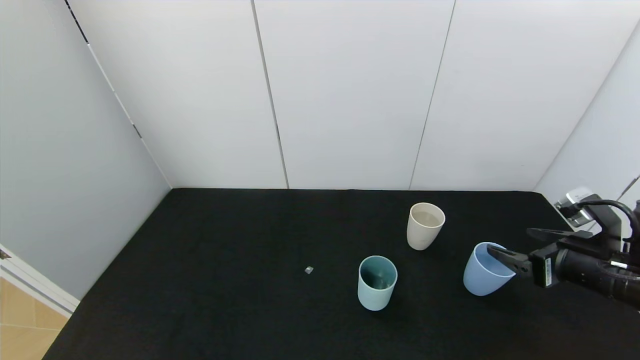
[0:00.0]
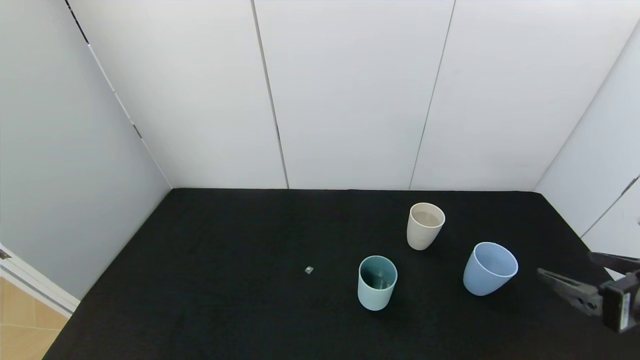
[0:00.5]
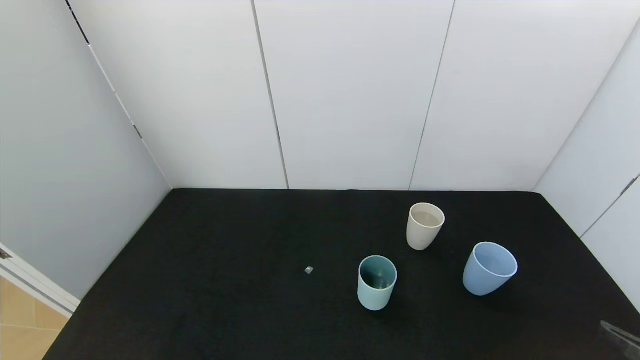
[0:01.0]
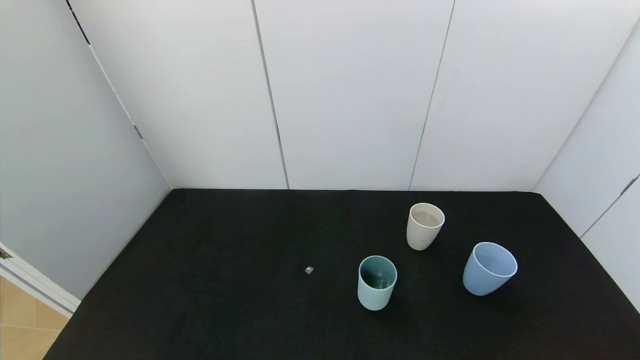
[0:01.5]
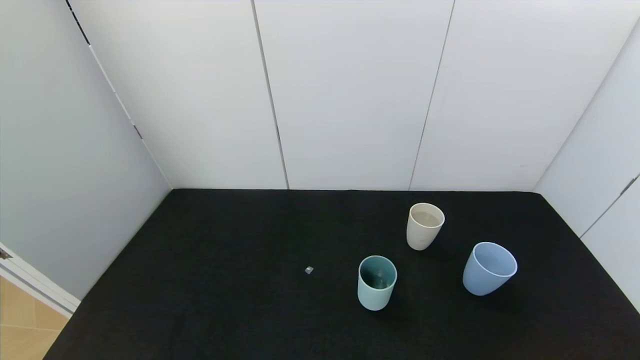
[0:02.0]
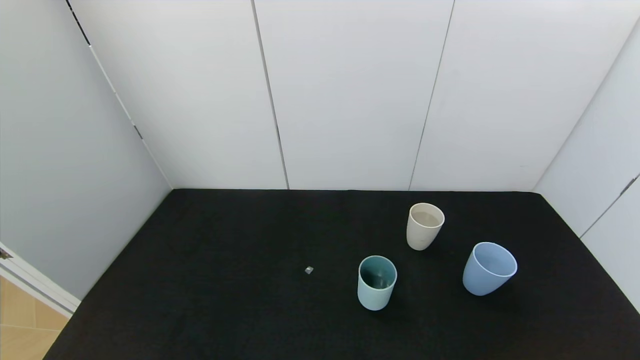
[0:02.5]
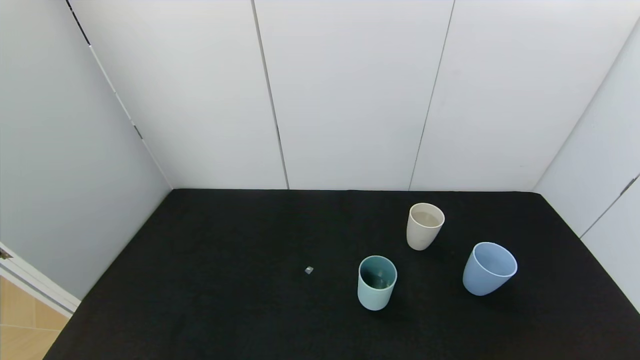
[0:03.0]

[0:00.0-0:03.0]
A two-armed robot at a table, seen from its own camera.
Task of the whole recording: use the gripper to pour the water into the other two cups on black table.
0:00.0 to 0:01.5: The right gripper shifts approximately 25 cm backward.

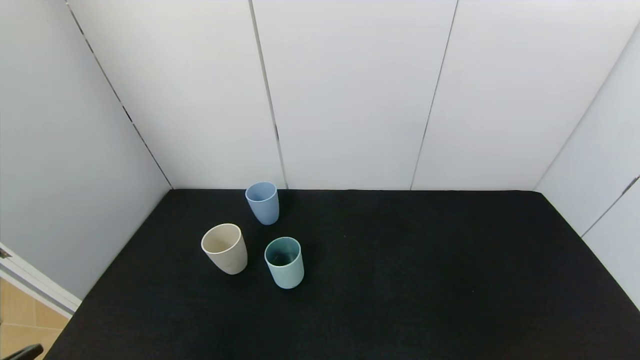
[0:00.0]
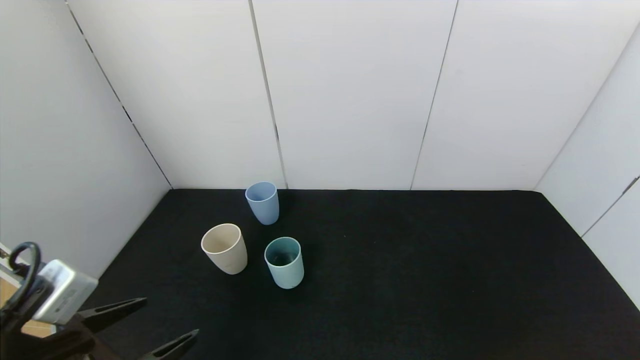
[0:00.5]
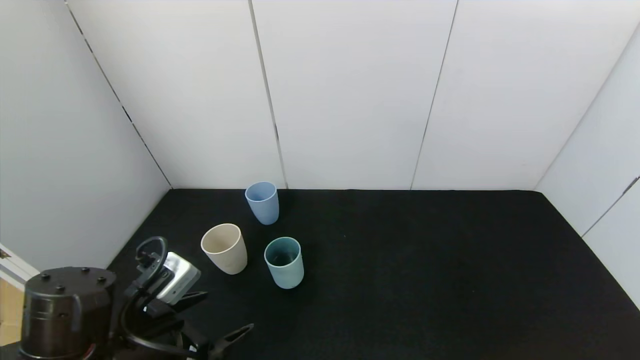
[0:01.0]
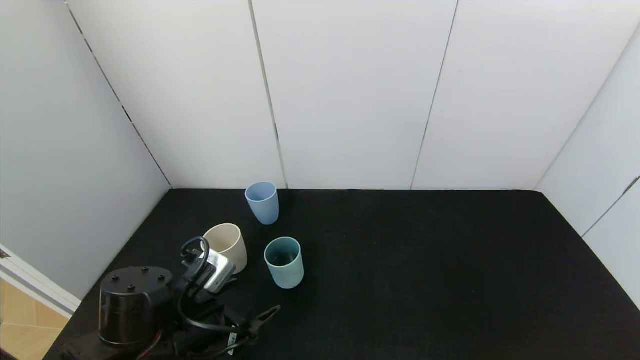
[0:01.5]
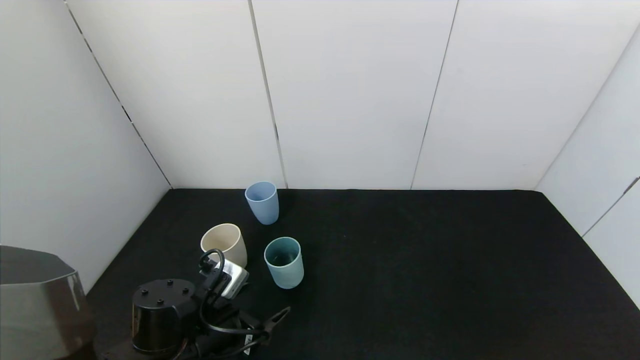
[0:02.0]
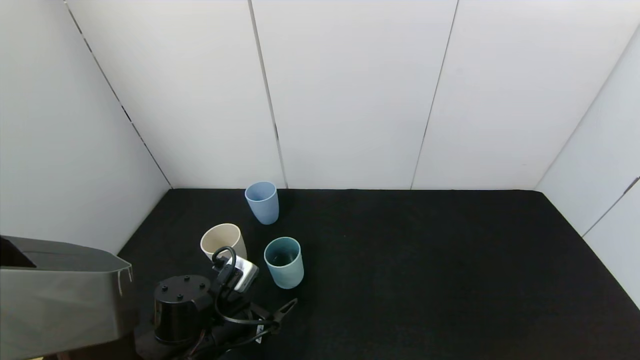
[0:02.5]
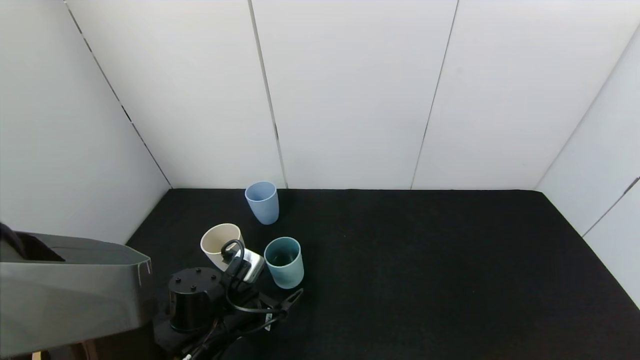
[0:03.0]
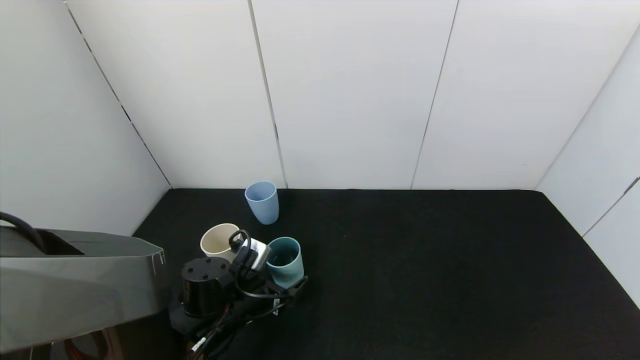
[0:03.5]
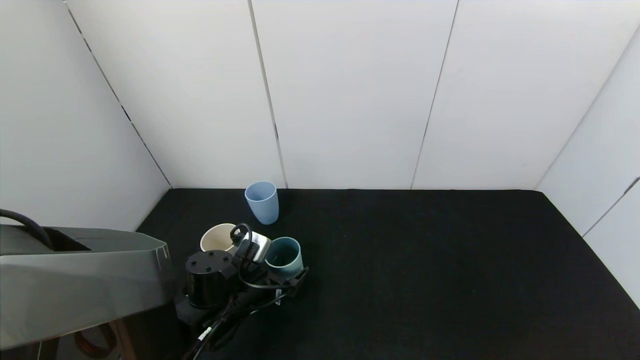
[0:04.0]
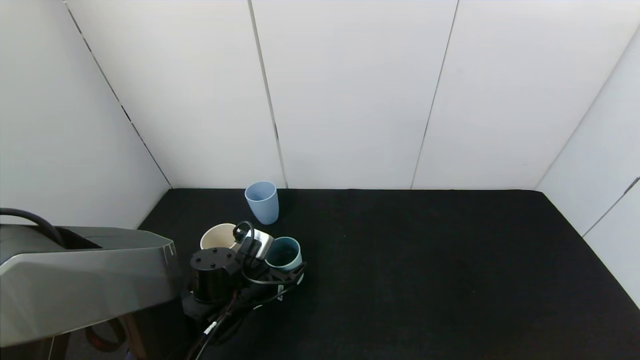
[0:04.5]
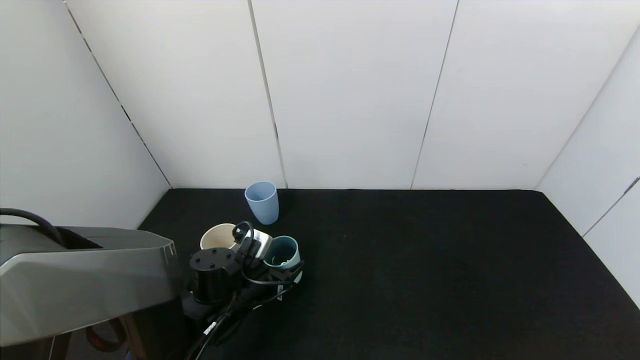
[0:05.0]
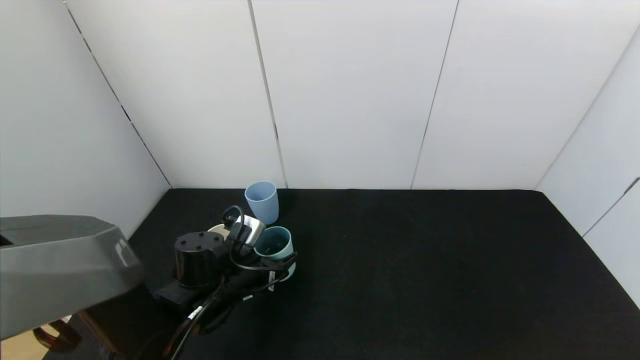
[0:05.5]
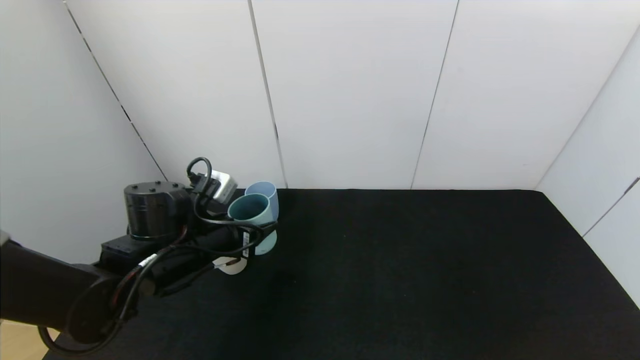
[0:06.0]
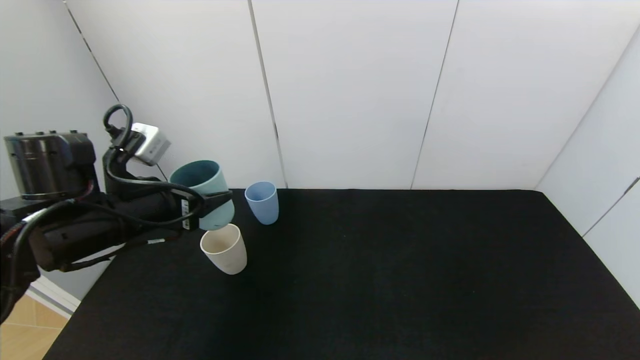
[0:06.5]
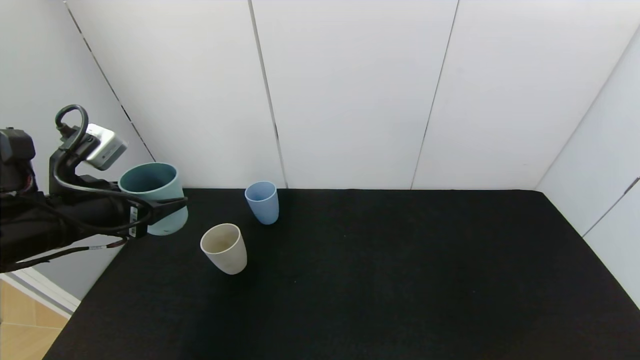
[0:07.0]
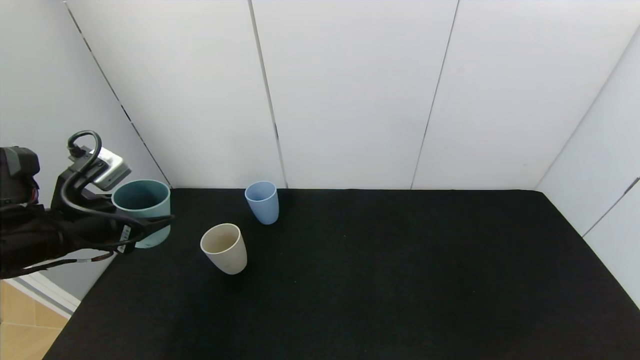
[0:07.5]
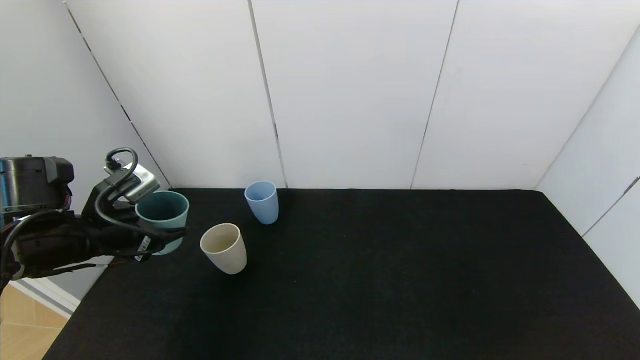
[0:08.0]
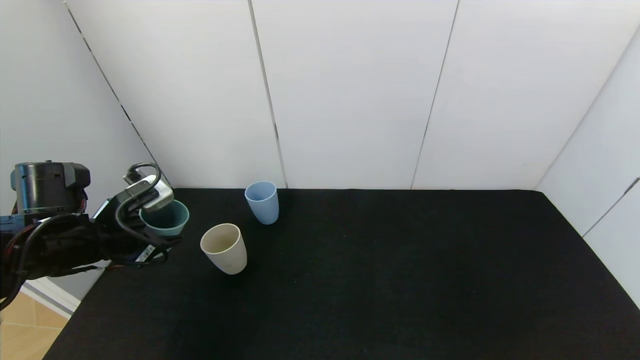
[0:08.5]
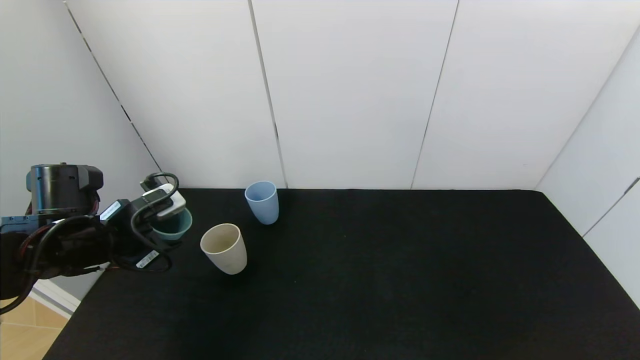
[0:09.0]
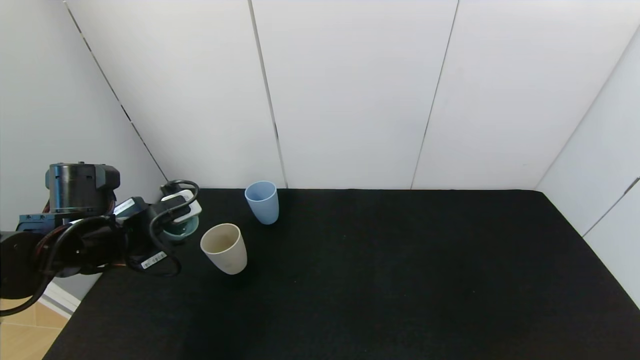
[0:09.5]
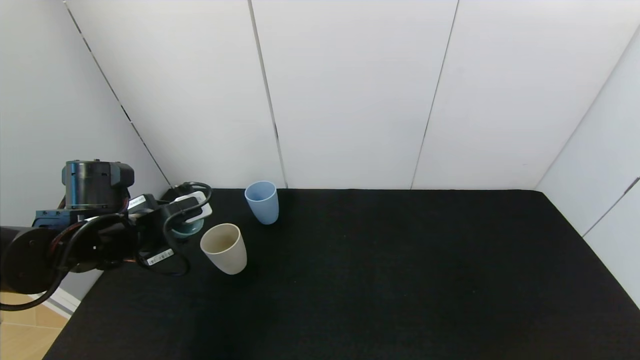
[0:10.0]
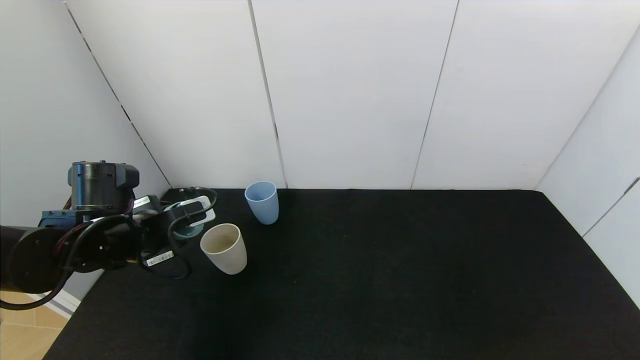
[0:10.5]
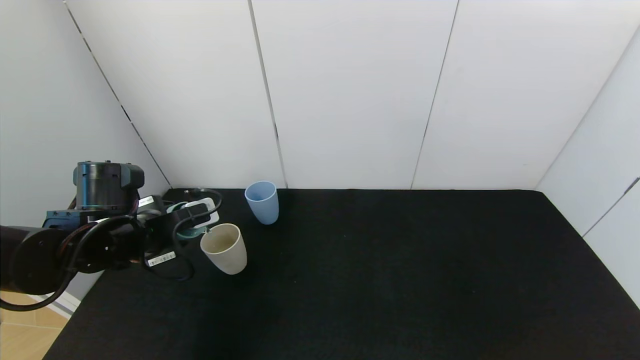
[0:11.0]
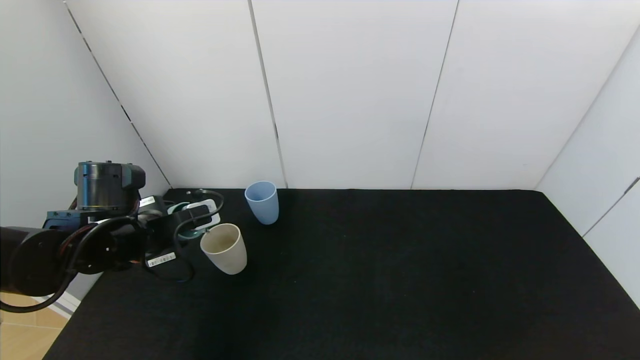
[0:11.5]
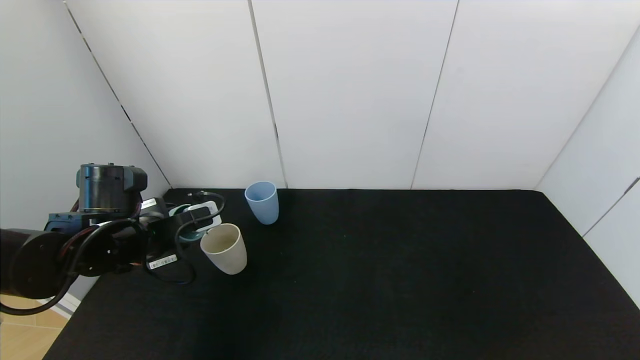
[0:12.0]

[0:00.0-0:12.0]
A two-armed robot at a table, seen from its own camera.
Task of the whole recording: use the gripper to pour the water into the other two cups on black table.
Step, 0:00.0 to 0:04.5: Grasp the green cup with the left gripper.
0:00.0 to 0:02.0: The left gripper travels forward, downward and to the right by about 25 cm.
0:02.0 to 0:04.0: The left gripper travels forward by about 5 cm.
0:04.0 to 0:06.0: The left gripper heads upward, covering some 10 cm, and closes its fingers.
0:06.0 to 0:08.0: The left gripper heads to the left, covering about 10 cm.
0:10.0 to 0:12.0: The grippers make only small movements.

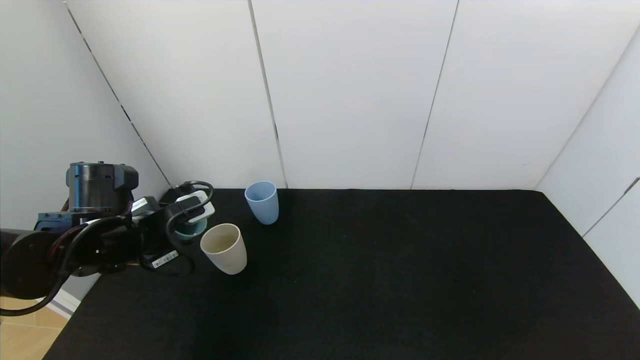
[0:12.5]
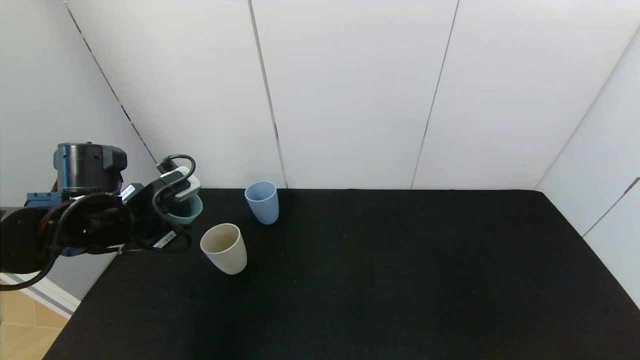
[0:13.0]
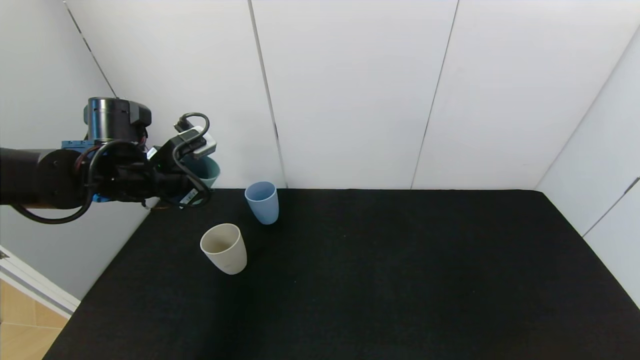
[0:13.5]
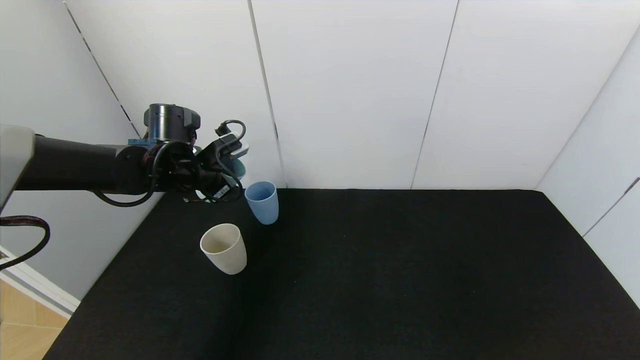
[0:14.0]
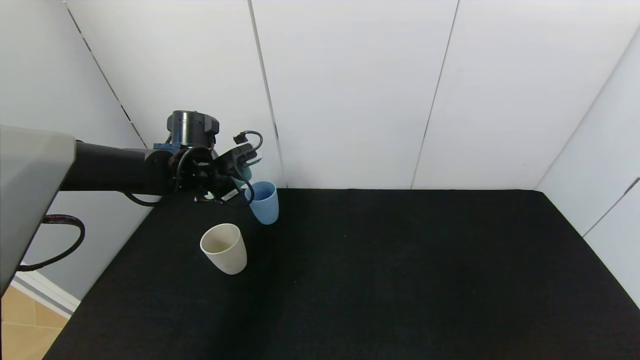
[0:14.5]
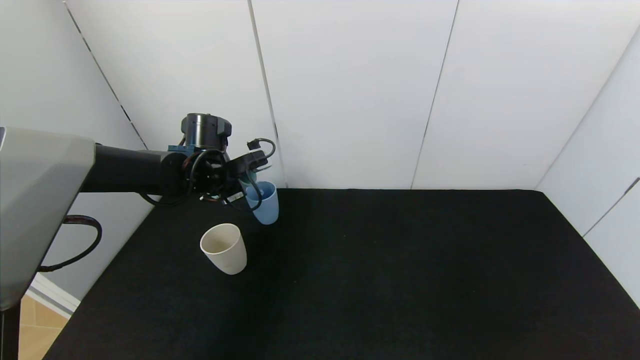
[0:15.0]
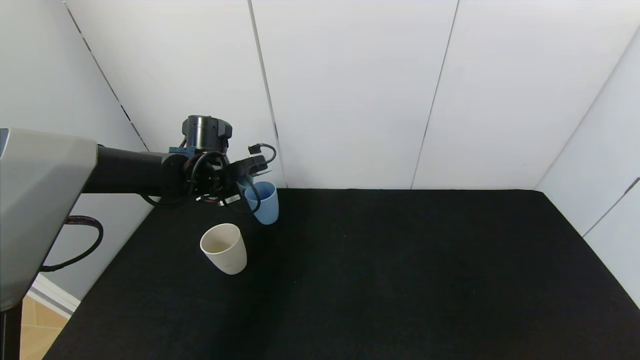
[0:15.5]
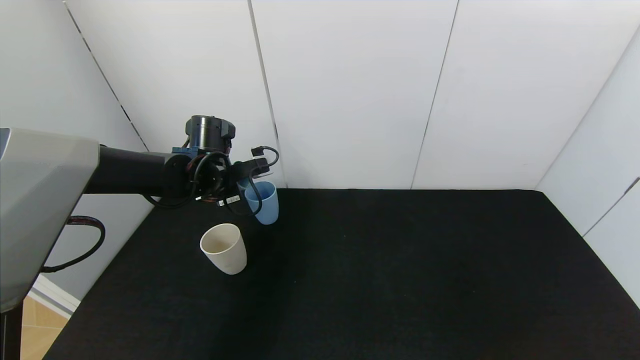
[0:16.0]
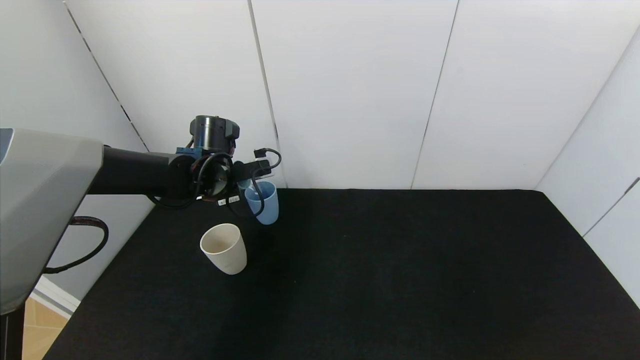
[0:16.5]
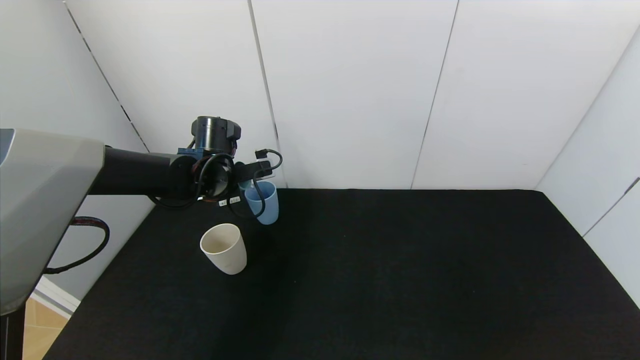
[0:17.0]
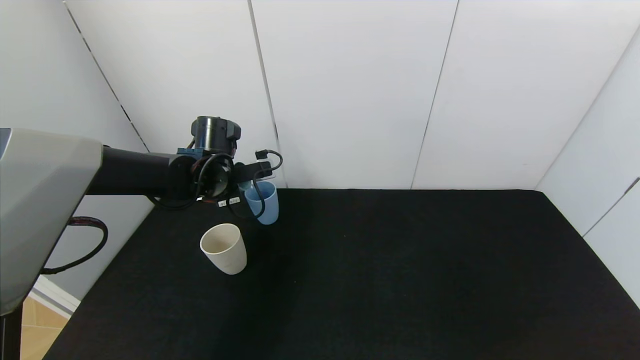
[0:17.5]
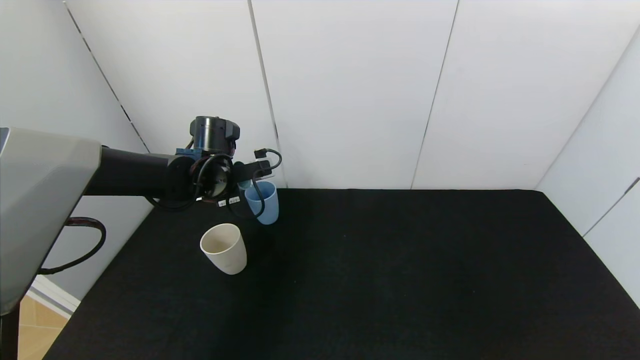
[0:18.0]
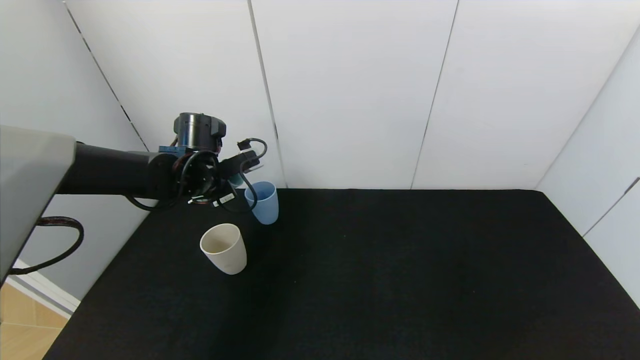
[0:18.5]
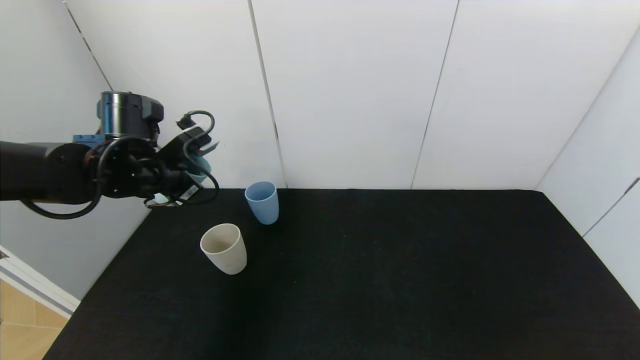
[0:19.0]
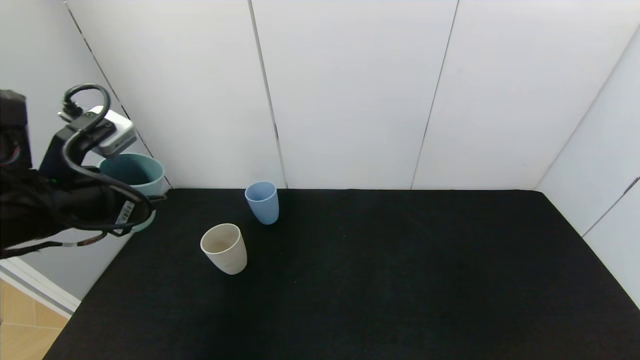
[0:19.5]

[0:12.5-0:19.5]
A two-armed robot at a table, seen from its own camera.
Task of the whole recording: use the gripper to pour the water into the other two cups on black table.
Step, 0:12.5 to 0:18.5: Pour water from green cup to blue cup with the left gripper.
0:12.5 to 0:14.5: The left gripper shifts roughly 15 cm forward.
0:14.5 to 0:16.0: The grippers stay close to where they were, moving slightly.
0:16.0 to 0:17.5: There are only small adjustments of the grippers.
0:17.5 to 0:19.5: The left gripper is displaced backward by some 20 cm.
